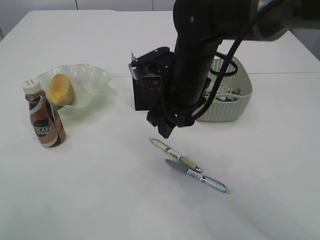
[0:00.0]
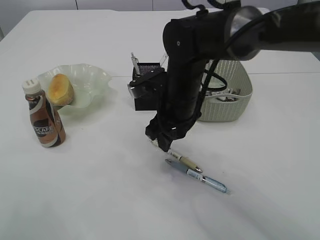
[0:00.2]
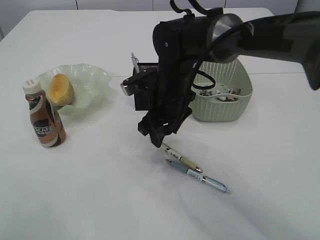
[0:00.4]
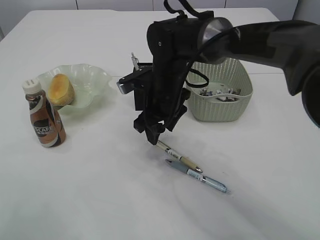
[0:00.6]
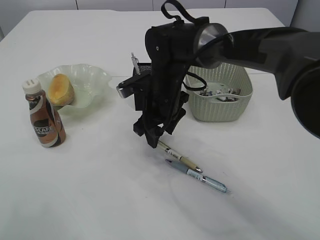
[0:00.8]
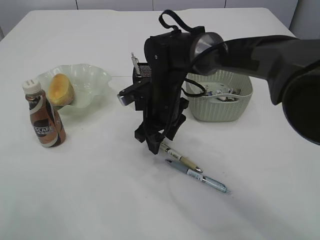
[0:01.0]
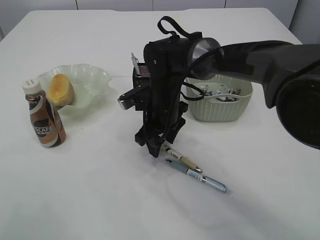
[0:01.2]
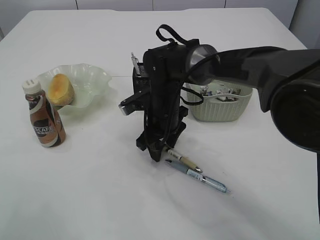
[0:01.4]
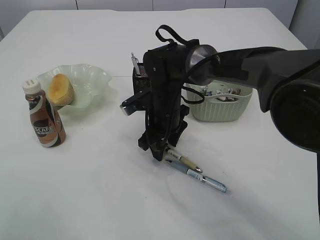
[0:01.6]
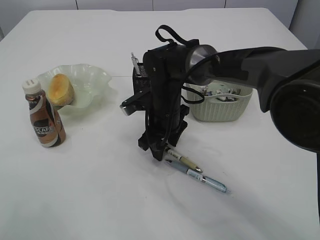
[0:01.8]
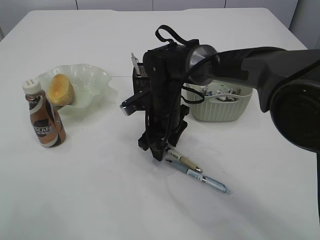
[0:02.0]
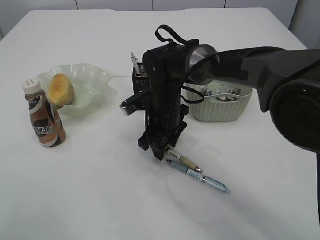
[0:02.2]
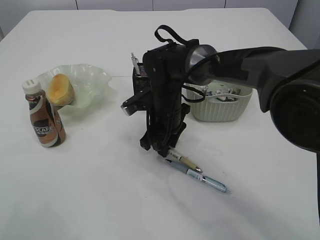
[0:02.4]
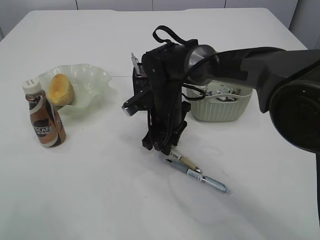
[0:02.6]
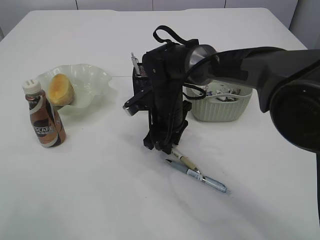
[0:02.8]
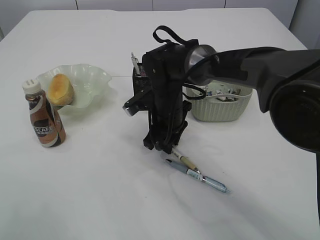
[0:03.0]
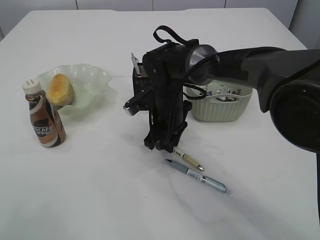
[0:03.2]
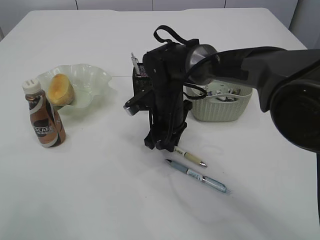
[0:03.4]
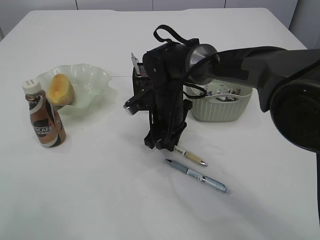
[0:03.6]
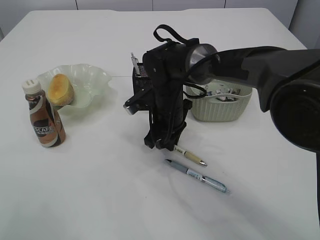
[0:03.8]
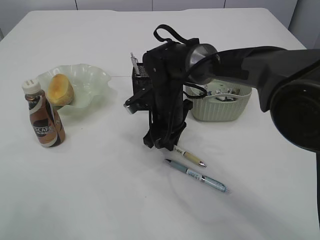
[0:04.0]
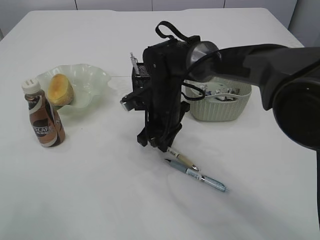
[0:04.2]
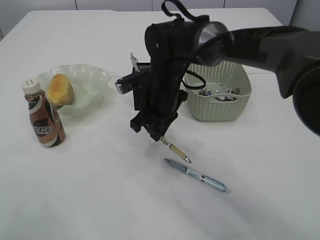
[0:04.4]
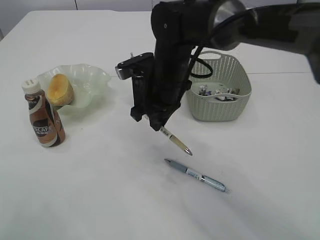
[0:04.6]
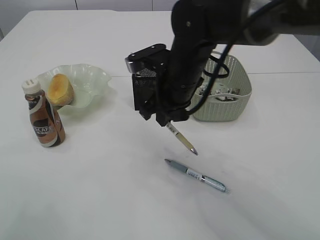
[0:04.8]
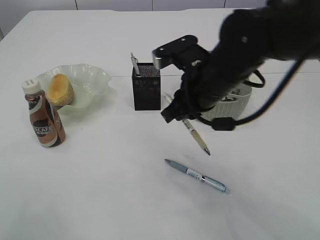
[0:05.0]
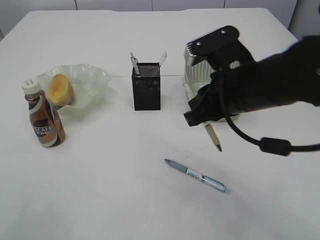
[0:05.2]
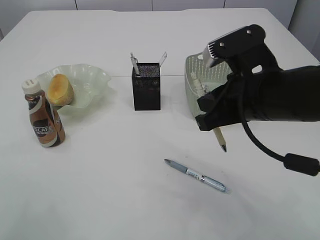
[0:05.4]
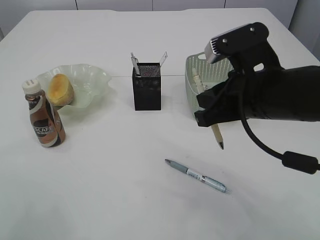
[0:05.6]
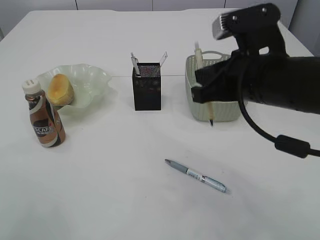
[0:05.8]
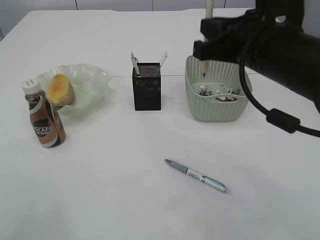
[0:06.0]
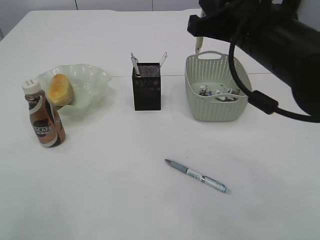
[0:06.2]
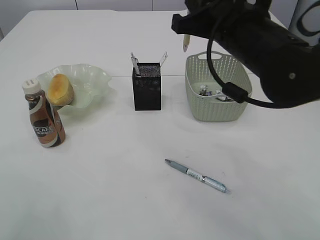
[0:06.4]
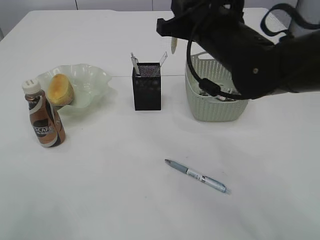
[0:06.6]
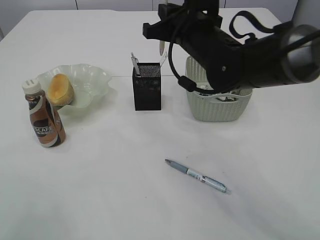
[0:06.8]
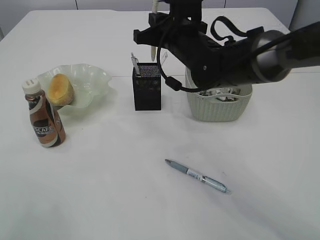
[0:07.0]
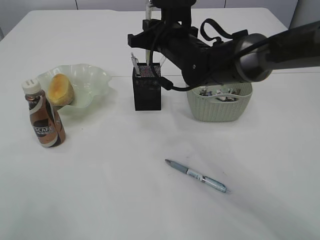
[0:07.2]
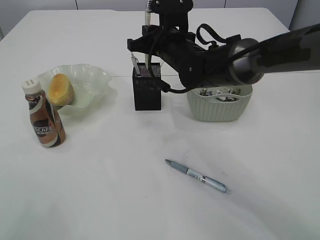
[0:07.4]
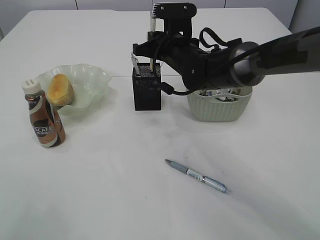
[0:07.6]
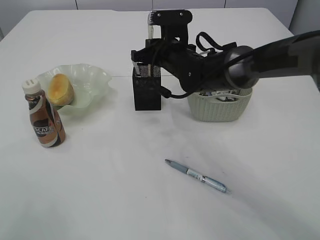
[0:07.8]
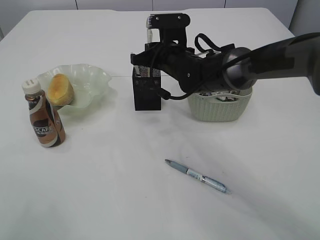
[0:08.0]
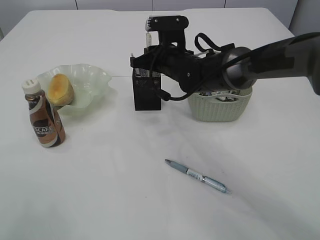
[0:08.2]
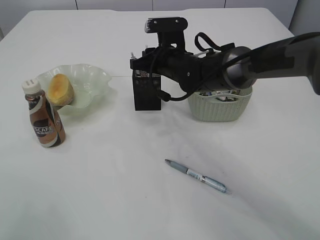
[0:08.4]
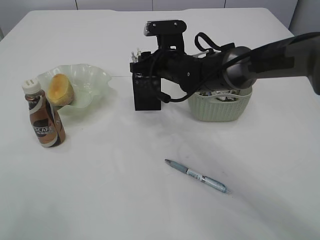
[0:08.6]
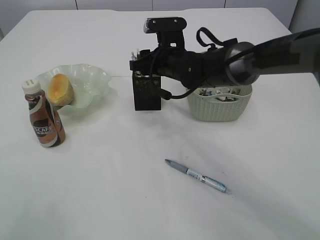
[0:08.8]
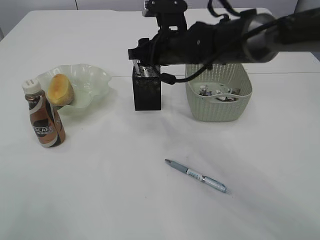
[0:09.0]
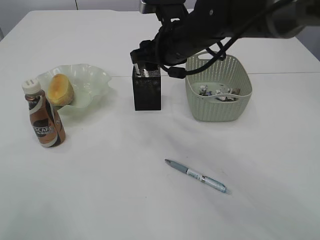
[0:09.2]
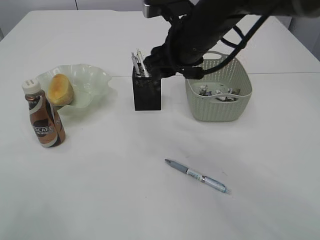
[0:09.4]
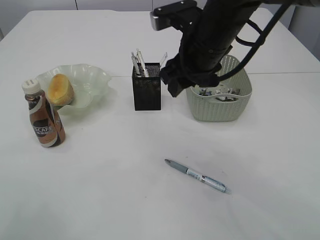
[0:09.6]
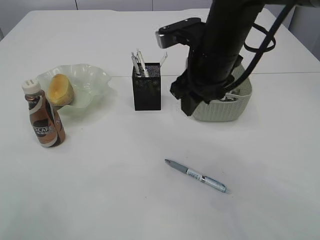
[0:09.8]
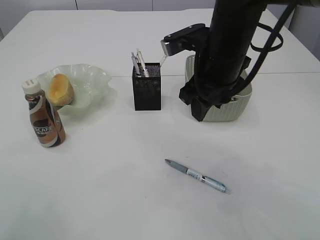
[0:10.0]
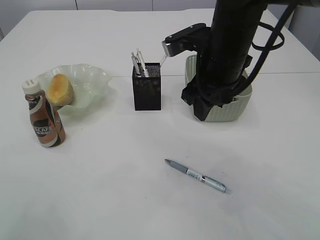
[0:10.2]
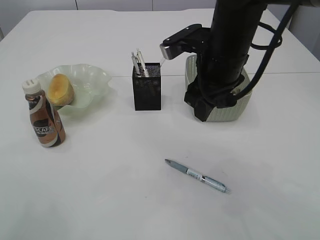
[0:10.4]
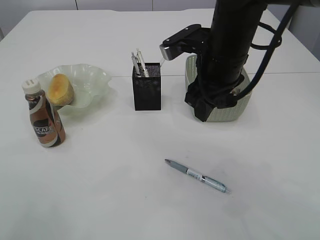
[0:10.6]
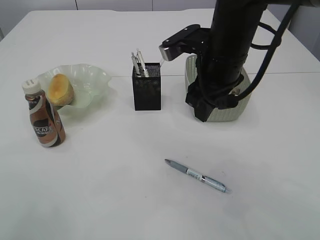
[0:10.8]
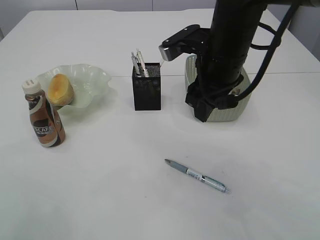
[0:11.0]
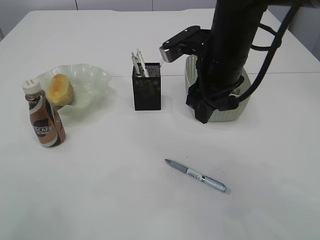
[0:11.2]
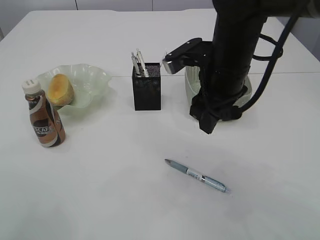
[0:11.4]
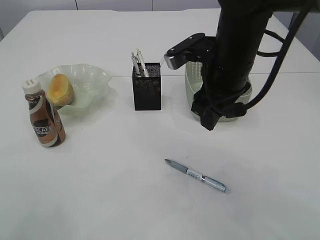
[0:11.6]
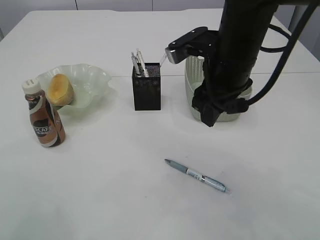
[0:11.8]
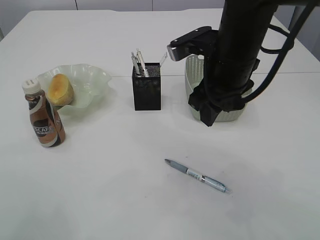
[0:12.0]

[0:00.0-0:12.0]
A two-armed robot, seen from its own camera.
Step, 0:00.0 to 0:04.8: Pick up the pen with right arm.
Step, 0:05.0 to 0:09.4: Place the pen into the pen holder.
0:00.0 to 0:01.6: The right gripper moves downward and forward, roughly 10 cm.
0:01.6 to 0:03.0: The right gripper closes up.
0:03.0 to 0:04.4: The grippers stay close to where they were, moving slightly.
0:04.4 to 0:06.0: The right gripper travels backward, upward and to the right by roughly 20 cm.
0:06.0 to 0:07.6: The right gripper travels forward, downward and to the left by some 20 cm.
0:07.6 to 0:09.0: The right gripper opens up.
0:09.0 to 0:10.4: The right gripper goes about 10 cm backward, to the right and upward.
0:10.4 to 0:12.0: The grippers move only a little.

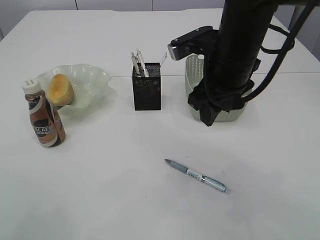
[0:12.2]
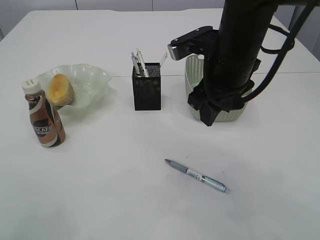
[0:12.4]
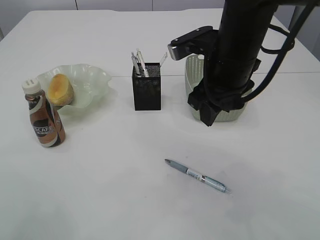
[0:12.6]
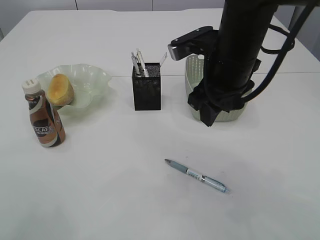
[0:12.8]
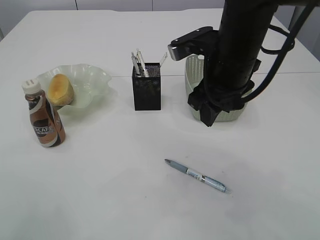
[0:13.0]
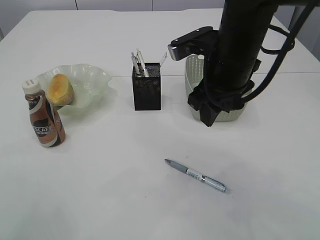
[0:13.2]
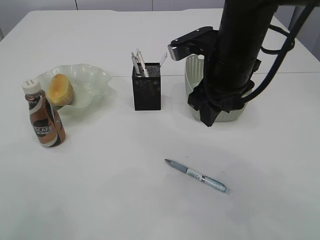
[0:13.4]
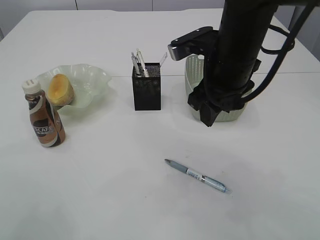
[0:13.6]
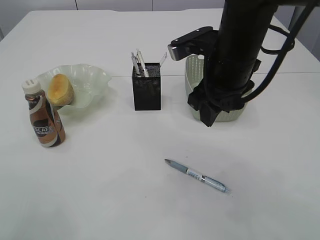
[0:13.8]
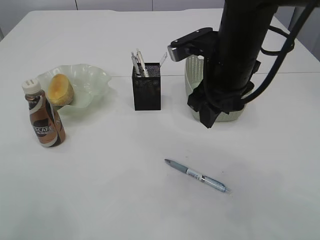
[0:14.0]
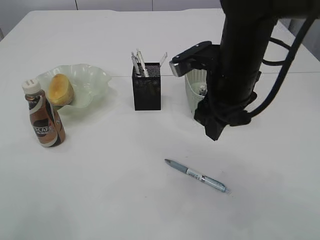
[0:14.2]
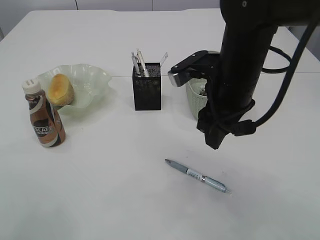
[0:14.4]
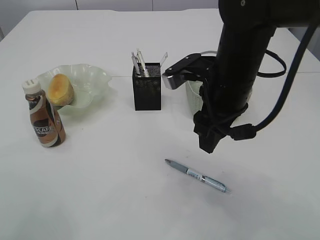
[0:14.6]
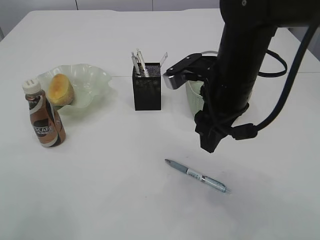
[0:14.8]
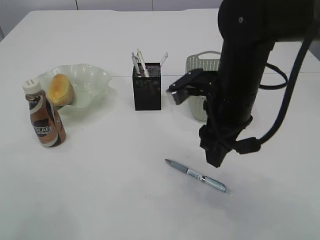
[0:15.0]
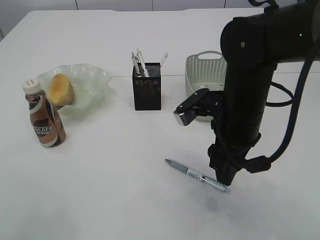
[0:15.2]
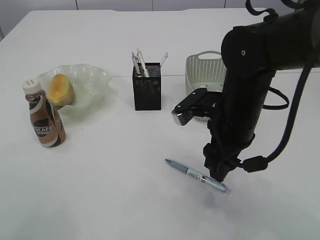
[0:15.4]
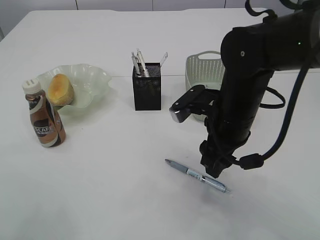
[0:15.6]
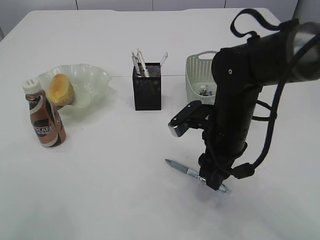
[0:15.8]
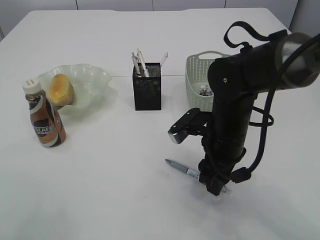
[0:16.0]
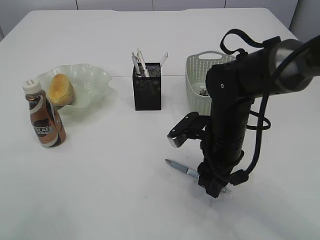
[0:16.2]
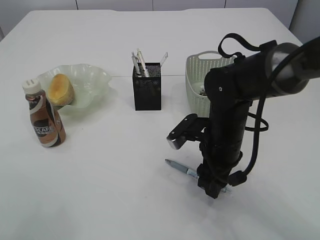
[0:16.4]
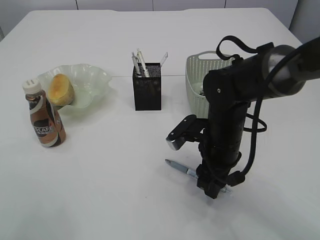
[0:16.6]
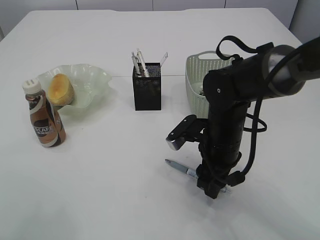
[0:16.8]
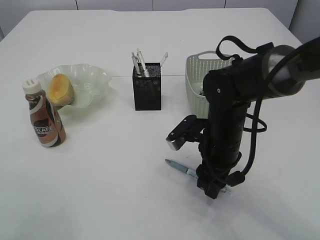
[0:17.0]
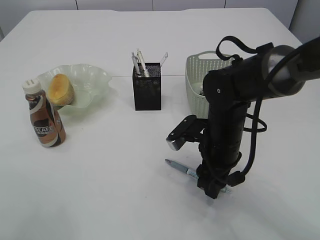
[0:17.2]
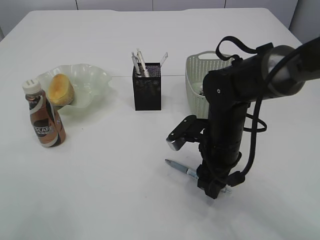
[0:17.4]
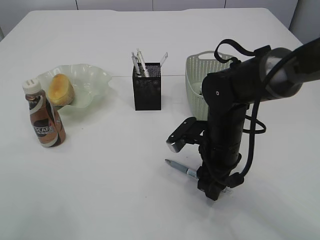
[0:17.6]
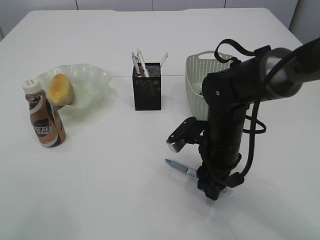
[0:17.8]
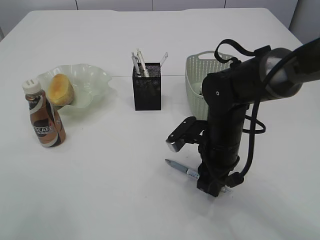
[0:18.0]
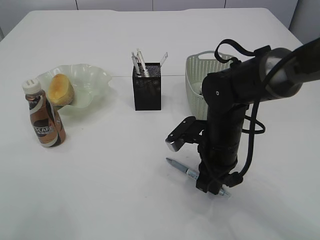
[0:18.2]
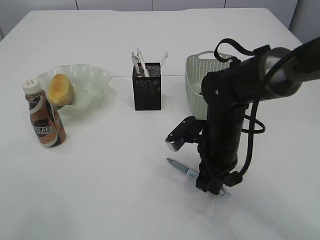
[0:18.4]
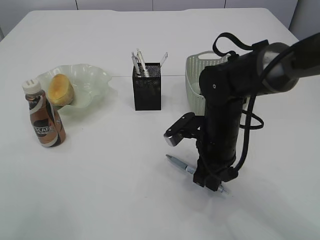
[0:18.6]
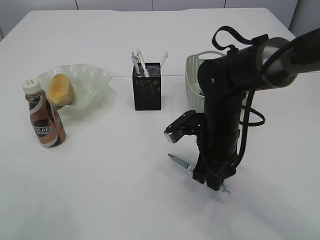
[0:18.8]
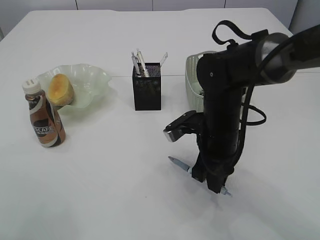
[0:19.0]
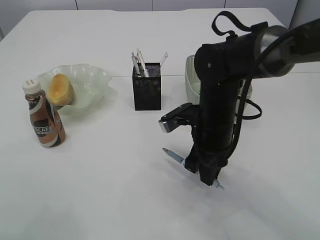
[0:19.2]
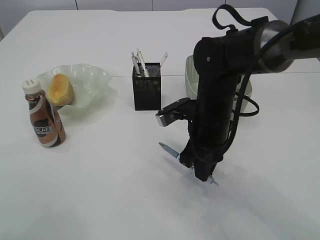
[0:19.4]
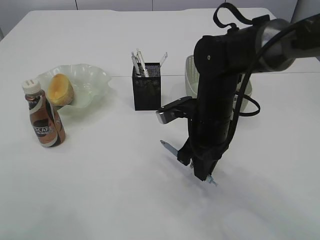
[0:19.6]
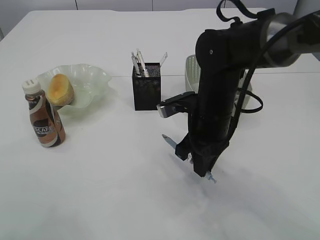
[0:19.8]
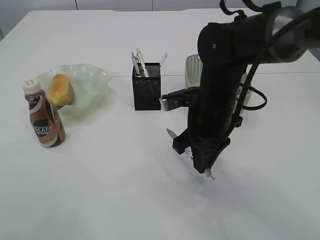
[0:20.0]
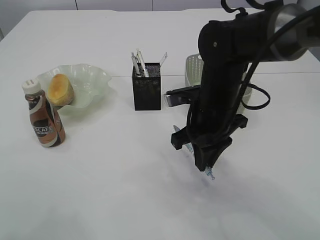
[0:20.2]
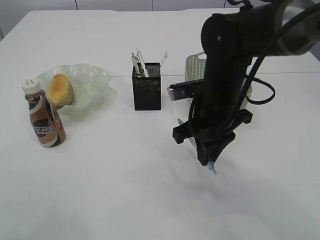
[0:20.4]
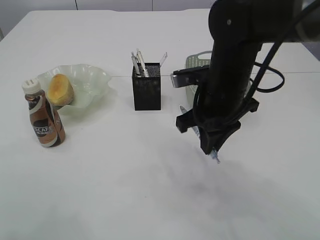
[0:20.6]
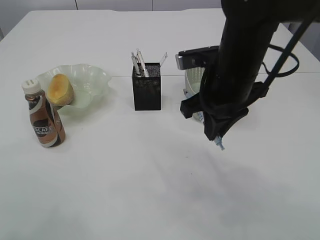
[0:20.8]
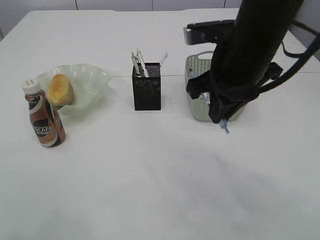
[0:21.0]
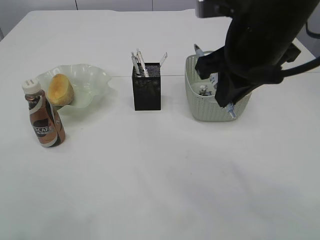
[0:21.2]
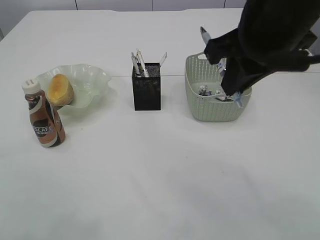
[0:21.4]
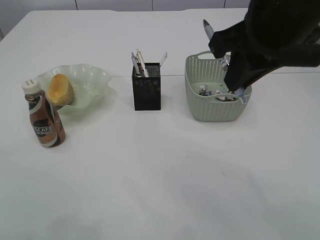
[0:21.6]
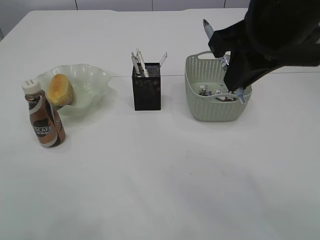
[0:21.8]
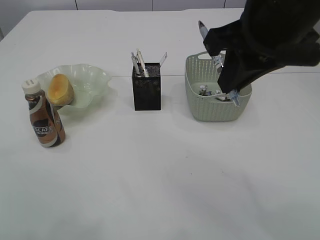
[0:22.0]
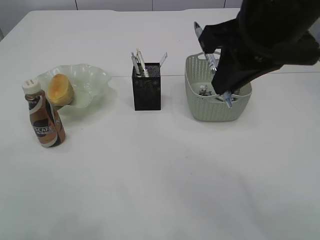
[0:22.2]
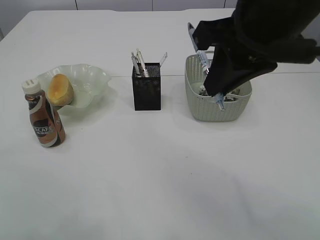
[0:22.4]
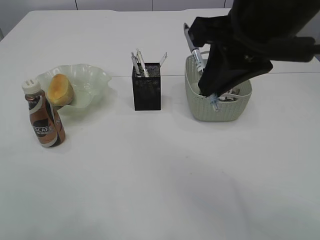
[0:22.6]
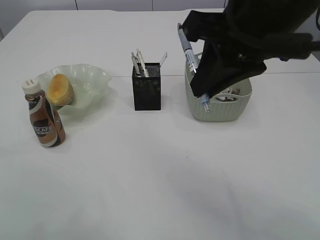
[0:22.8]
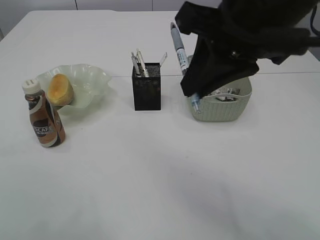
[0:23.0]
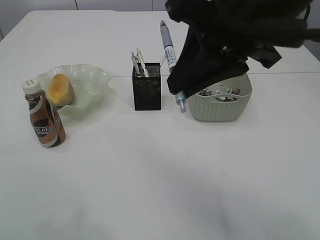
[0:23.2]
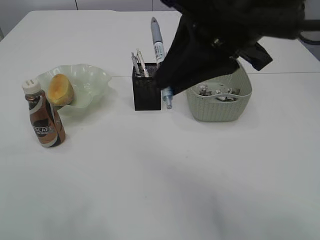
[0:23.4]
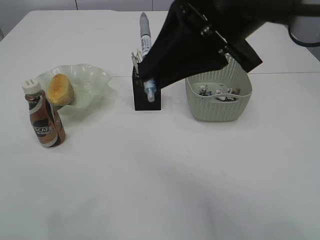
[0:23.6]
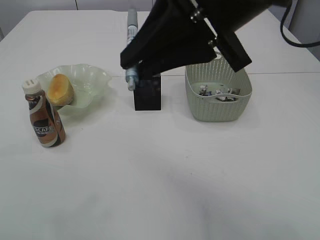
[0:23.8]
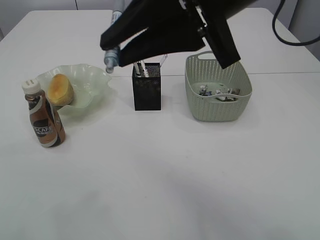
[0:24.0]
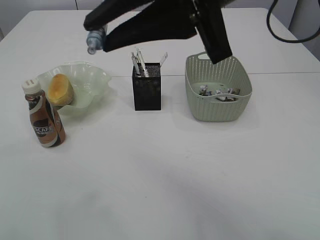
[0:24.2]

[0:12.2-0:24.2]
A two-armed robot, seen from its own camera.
Step, 0:12.2 to 0:20.0: Pick up the pen with right arm.
0:12.2 to 0:13.8: Neither gripper changes place.
0:13.8 to 0:15.2: The right gripper travels downward by approximately 5 cm.
0:15.2 to 0:16.6: The right gripper heads downward, covering about 10 cm.
0:16.6 to 0:18.2: The right gripper closes.
0:18.2 to 0:19.8: The right gripper shifts approximately 5 cm upward.
0:19.8 to 0:21.2: The right gripper moves upward, about 15 cm.
0:21.2 to 0:22.6: The right gripper ends up roughly 5 cm from where it was.
0:22.6 to 0:24.2: The right gripper moves roughly 5 cm.
